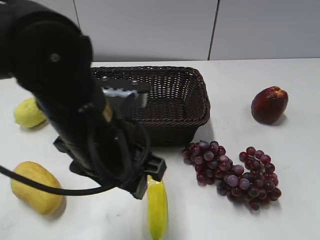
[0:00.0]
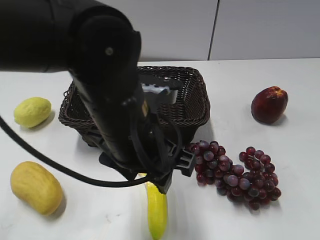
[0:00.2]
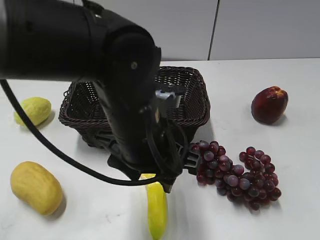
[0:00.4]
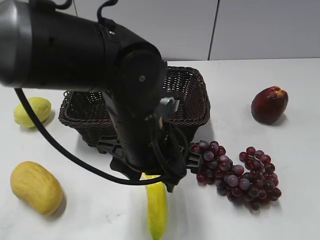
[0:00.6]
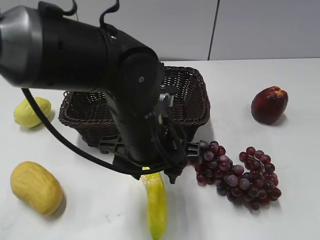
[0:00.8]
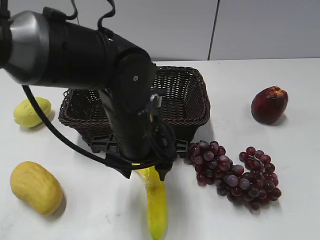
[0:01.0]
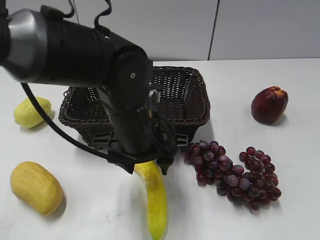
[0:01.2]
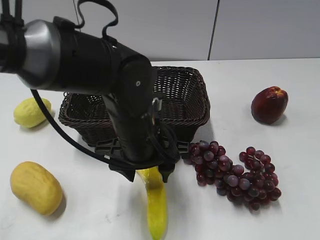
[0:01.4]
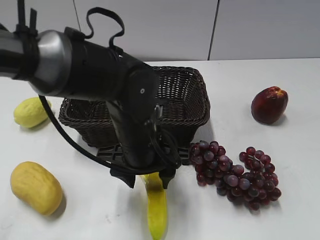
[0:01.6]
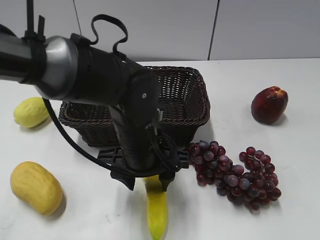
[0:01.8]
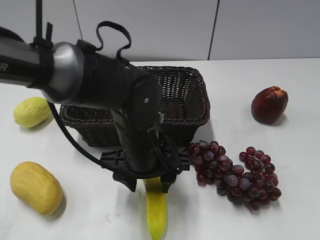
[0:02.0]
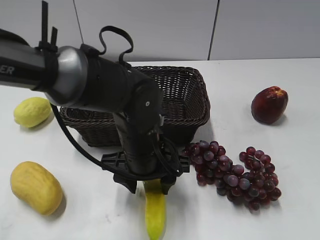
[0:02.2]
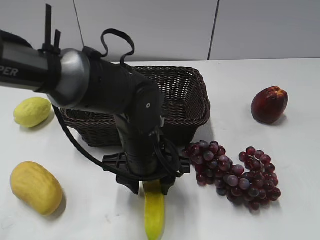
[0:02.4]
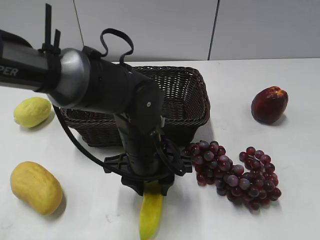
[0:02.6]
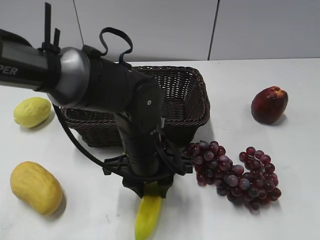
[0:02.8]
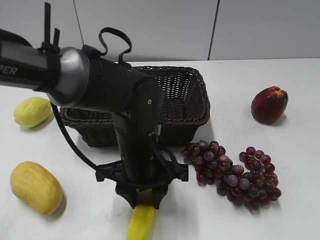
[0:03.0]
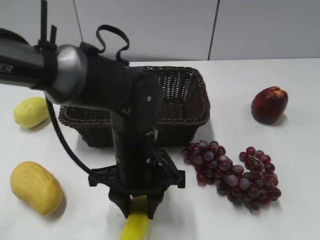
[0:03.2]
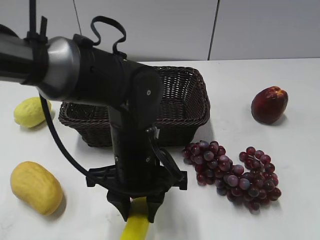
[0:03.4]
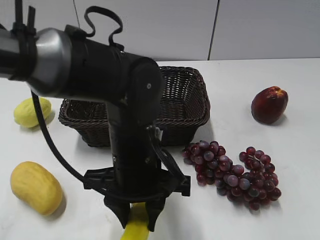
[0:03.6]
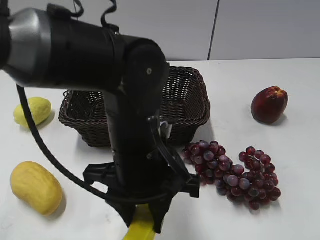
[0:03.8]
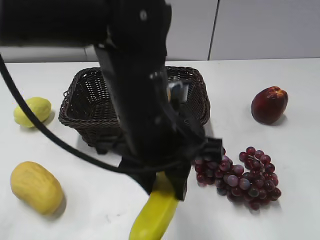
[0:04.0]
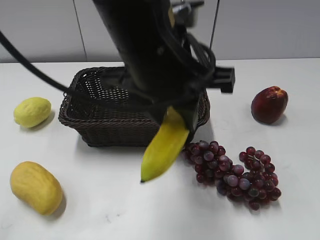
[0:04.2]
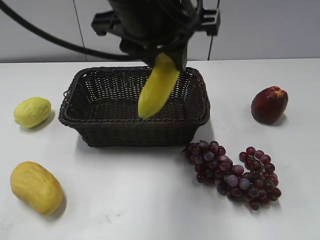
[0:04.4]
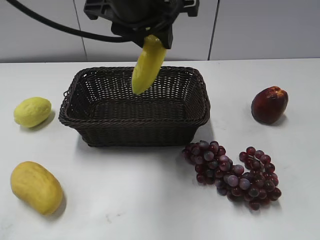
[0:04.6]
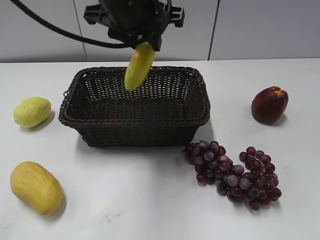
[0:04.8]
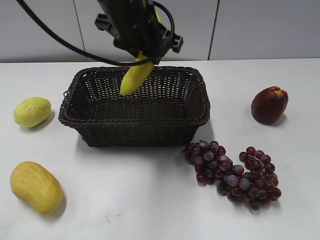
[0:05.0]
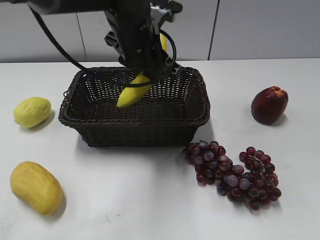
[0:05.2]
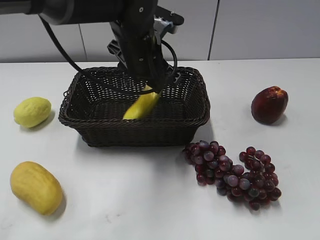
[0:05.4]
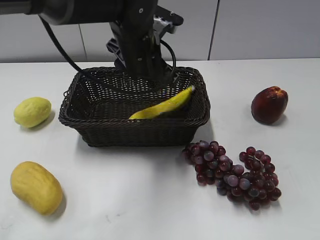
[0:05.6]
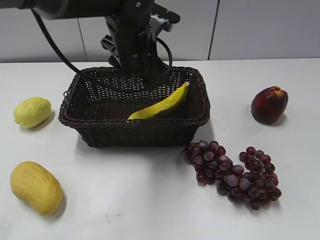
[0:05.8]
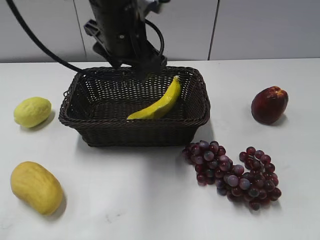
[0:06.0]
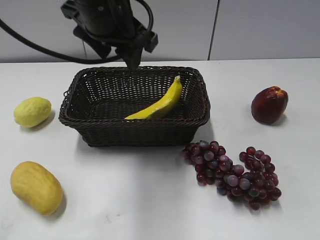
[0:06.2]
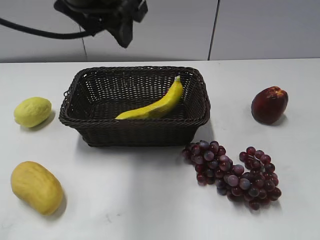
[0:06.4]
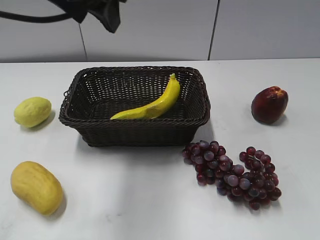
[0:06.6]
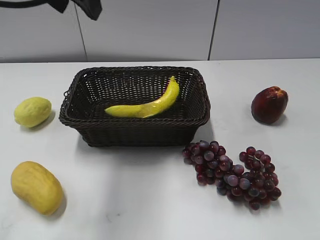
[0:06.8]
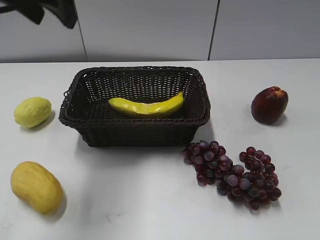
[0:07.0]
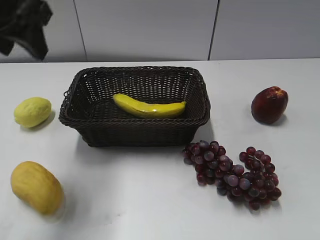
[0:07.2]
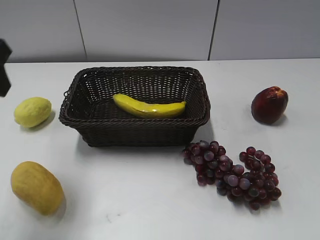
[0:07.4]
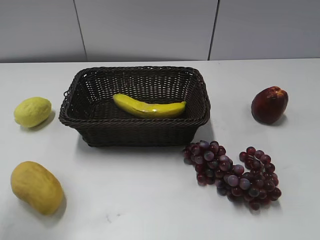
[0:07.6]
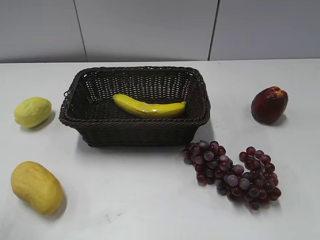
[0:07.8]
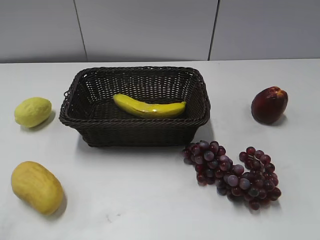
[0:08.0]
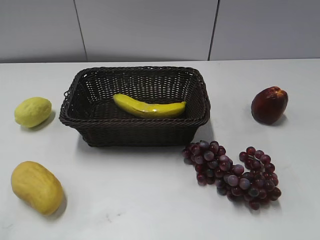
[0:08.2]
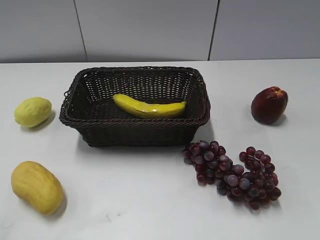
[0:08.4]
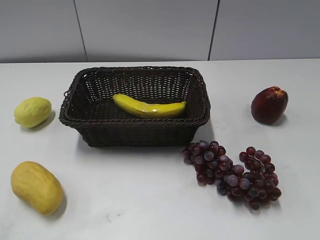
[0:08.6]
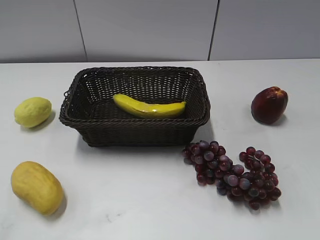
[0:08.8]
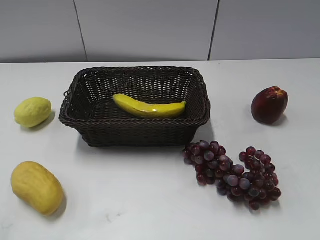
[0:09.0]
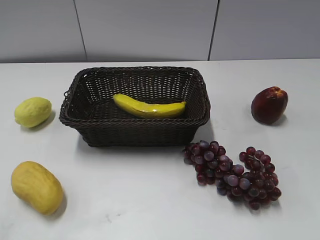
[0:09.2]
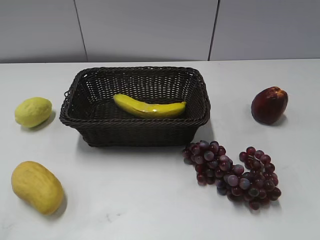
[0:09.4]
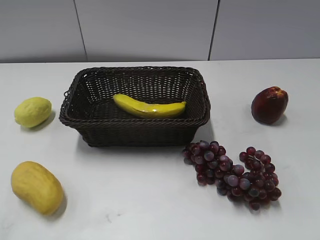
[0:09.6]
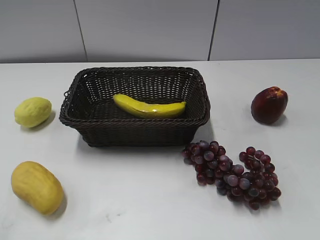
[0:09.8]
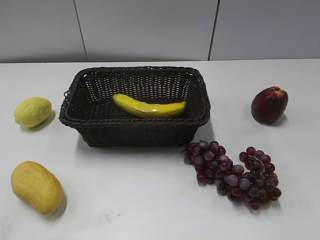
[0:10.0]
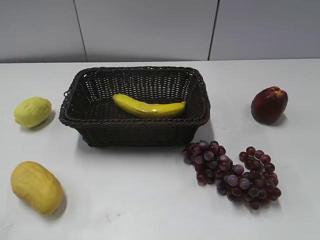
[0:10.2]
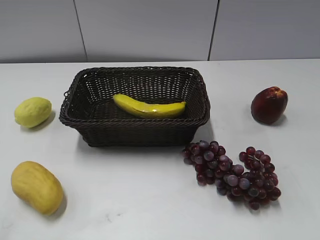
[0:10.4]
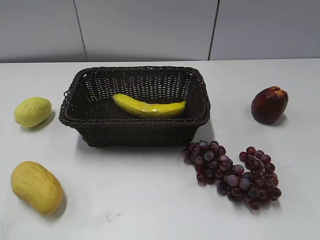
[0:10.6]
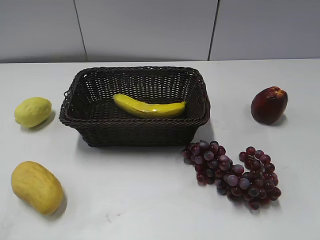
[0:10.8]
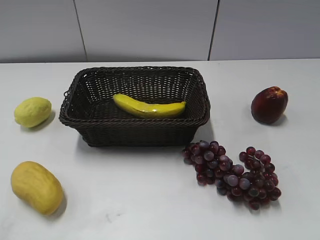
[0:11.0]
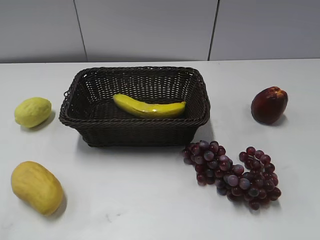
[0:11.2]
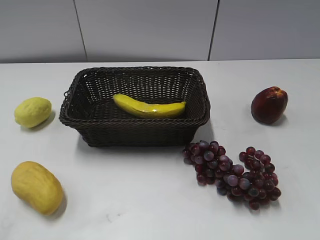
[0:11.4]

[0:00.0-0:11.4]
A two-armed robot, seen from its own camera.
Step, 0:00.0 to 0:02.4: Grasp the banana with left gripper.
Step, 0:02.8 to 0:05.8: Place the banana in the basket with left gripper.
0:00.0 to 0:01.4: The left gripper shifts some 10 cm downward and forward.
0:01.4 to 0:02.8: The left gripper closes.
0:02.8 to 0:04.2: The left gripper shifts about 20 cm upward.
0:04.2 to 0:05.6: The left gripper is displaced forward and downward by some 15 cm, and opens its fingers.
0:05.6 to 0:07.2: The left gripper is displaced to the left, upward and backward by some 20 cm.
0:07.2 to 0:08.6: The left gripper travels backward and to the left by some 30 cm.
0:10.0 to 0:11.4: The two grippers keep their place.

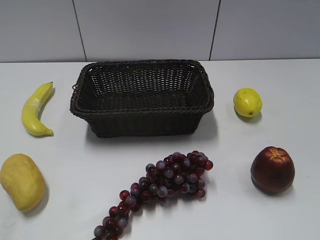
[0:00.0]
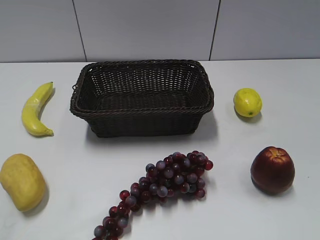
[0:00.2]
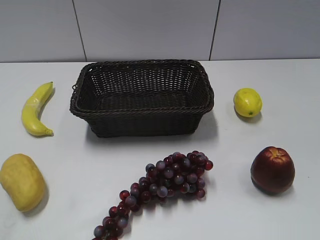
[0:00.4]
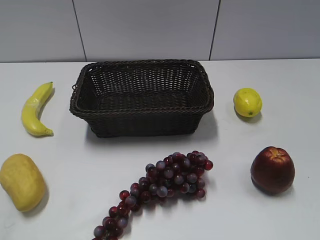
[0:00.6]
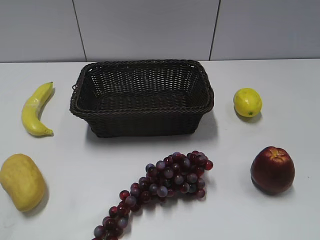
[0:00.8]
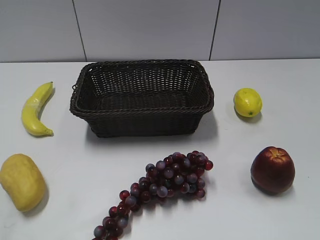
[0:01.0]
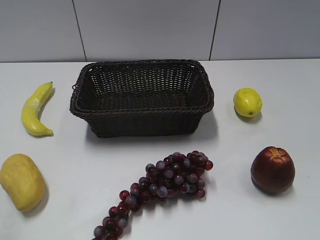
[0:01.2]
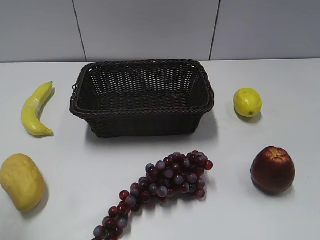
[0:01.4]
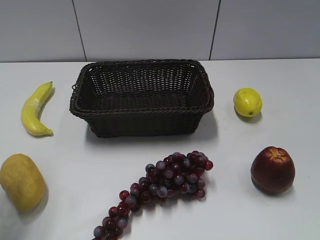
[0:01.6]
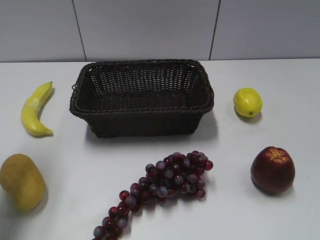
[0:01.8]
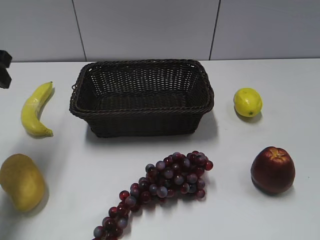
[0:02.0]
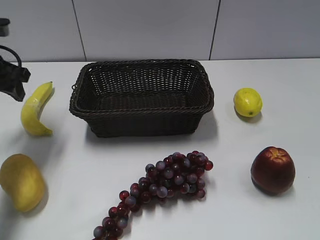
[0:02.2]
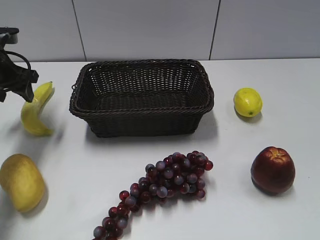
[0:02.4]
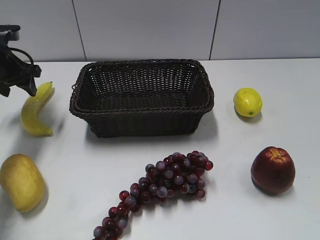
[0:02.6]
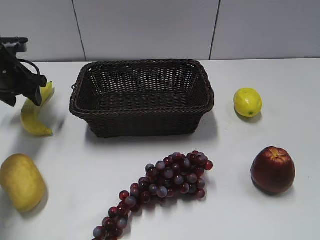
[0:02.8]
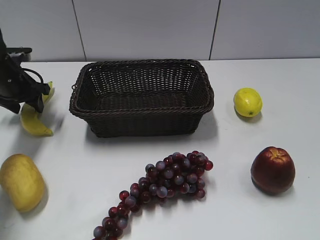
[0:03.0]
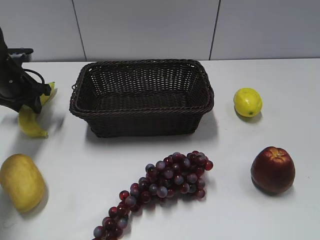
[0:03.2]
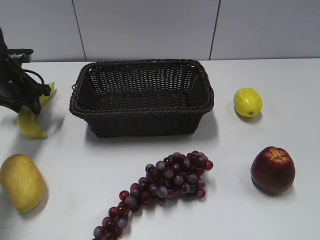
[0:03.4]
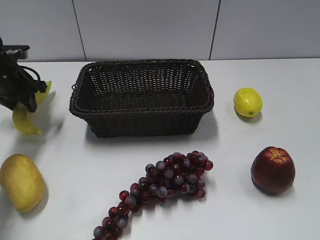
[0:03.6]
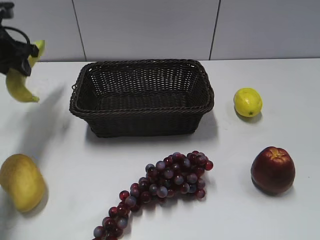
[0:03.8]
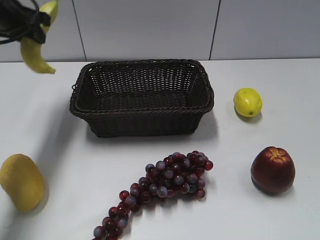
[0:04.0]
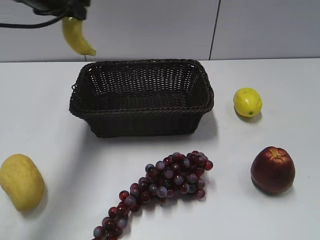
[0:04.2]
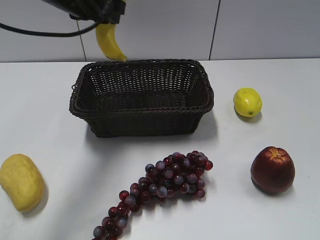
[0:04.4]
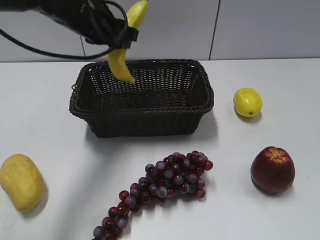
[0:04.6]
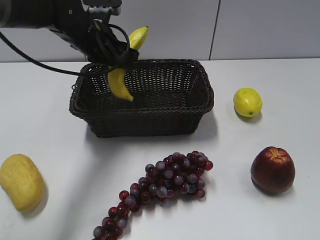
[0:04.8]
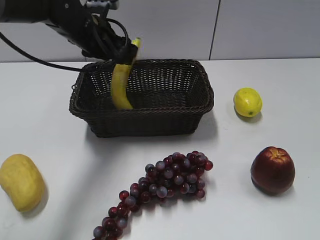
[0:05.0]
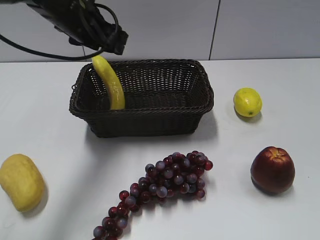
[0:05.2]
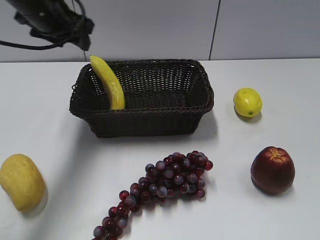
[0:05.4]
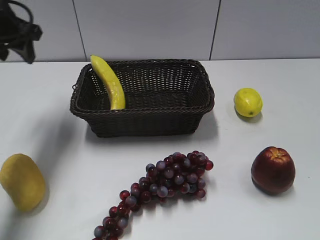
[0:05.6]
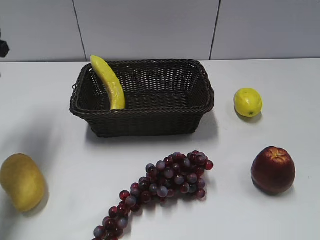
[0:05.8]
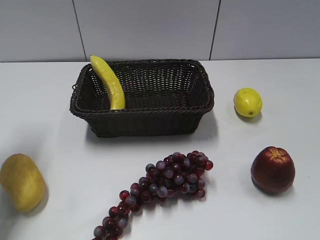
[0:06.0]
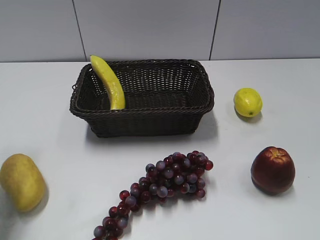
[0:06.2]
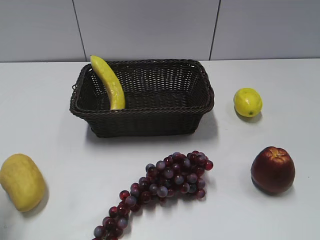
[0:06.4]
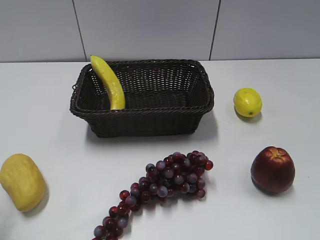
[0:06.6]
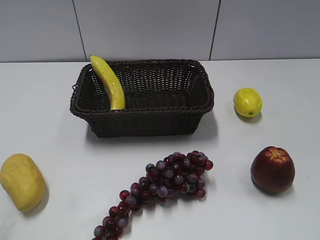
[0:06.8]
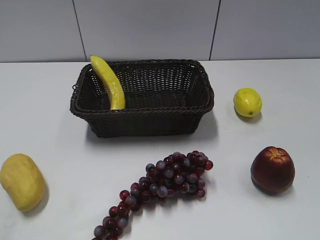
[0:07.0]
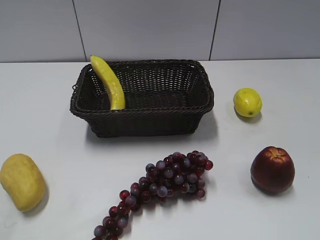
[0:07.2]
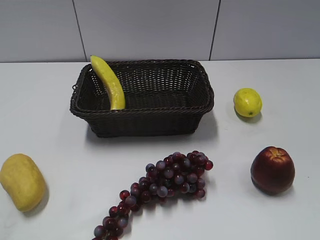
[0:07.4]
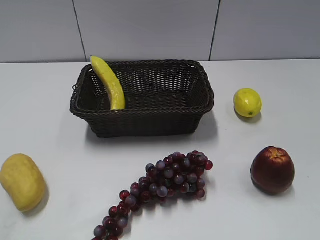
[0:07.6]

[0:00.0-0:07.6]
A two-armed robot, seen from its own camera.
Step, 0:02.0 to 0:03.2: Grasp the banana with left gripper.
Step, 0:03.4 to 0:05.0: Place the banana in the basket with left gripper.
0:01.6 to 0:03.0: The left gripper travels forward and downward by some 30 cm.
0:03.0 to 0:04.6: The left gripper goes some 20 cm to the right and upward, and closes up.
0:04.6 to 0:06.0: The left gripper goes about 20 cm to the left and backward, and opens its fingers.
0:06.0 to 0:07.6: The left gripper is displaced backward by roughly 30 cm.

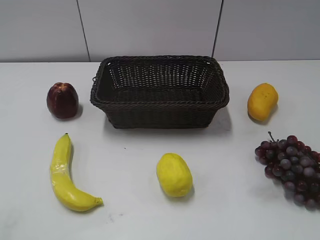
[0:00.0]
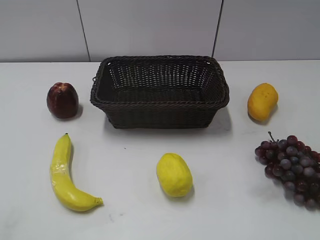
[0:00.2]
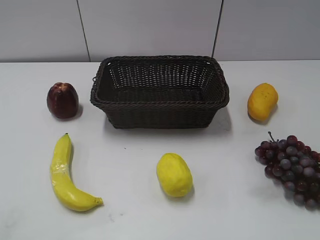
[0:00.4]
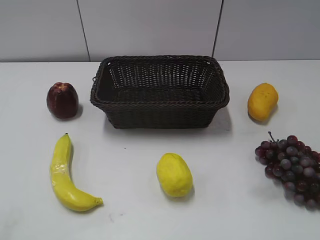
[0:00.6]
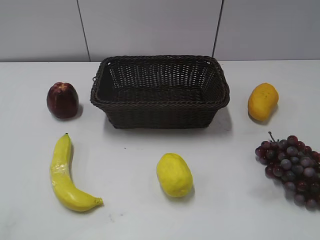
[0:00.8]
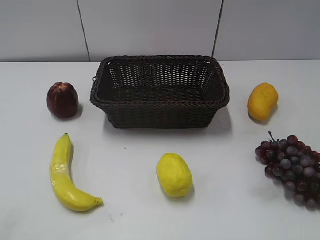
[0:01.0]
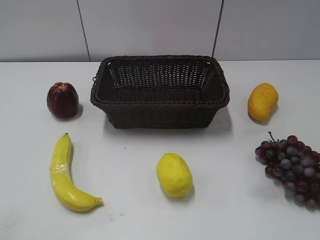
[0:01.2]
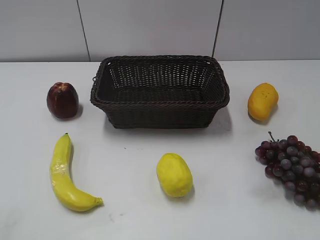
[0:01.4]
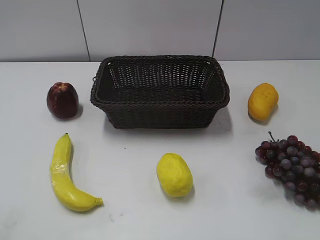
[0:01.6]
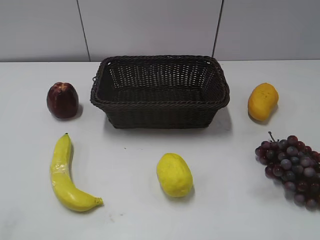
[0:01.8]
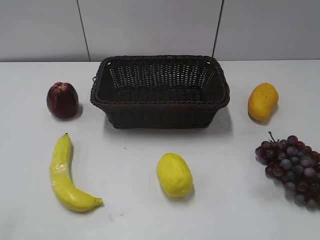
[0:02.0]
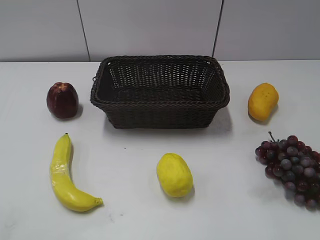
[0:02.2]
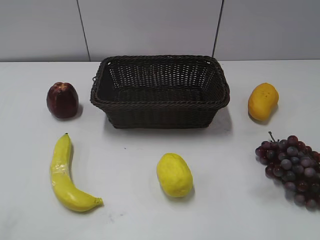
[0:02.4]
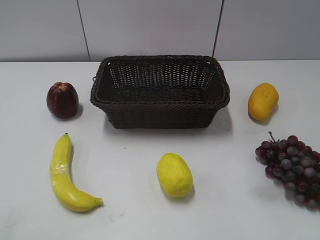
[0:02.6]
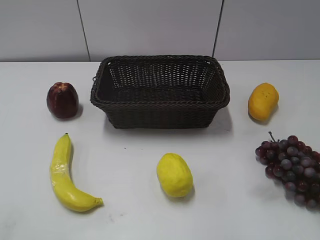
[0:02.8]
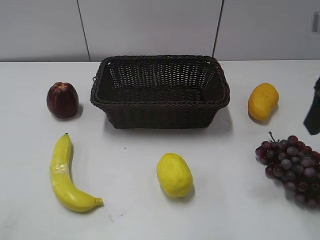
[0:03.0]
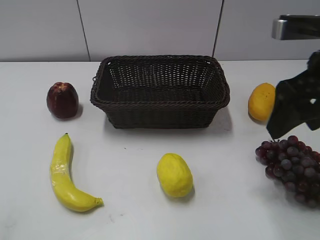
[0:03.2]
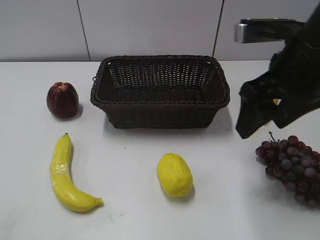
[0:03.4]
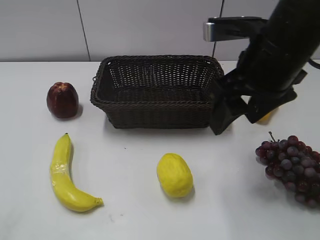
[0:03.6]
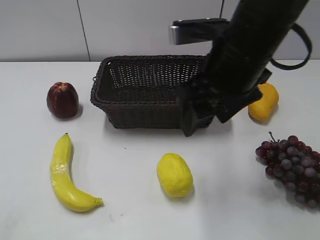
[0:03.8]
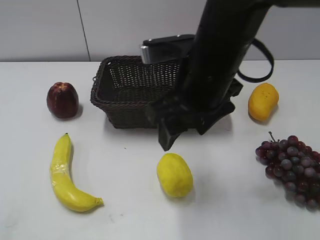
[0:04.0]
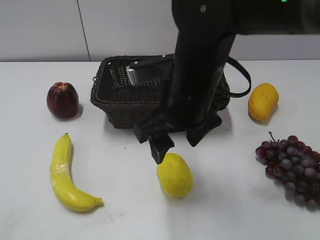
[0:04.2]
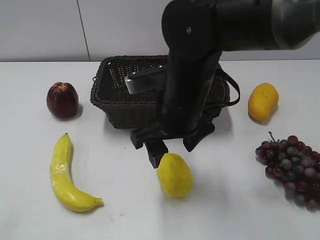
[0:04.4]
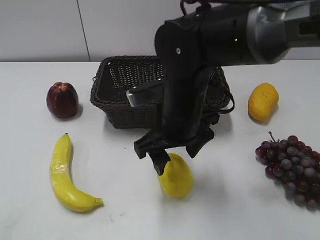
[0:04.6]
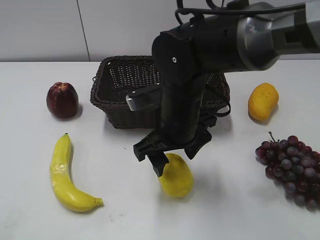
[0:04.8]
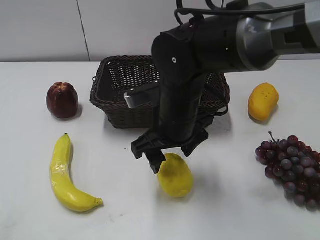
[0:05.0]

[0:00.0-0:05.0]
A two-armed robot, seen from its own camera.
0:01.6 to 0:03.4: The right gripper is displaced forward and to the left by some 25 cm.
0:03.4 to 0:05.0: The right gripper moves to the left and downward, about 20 cm.
